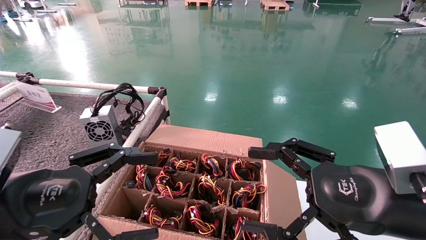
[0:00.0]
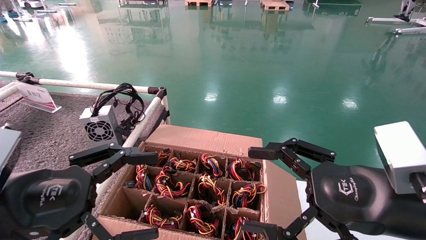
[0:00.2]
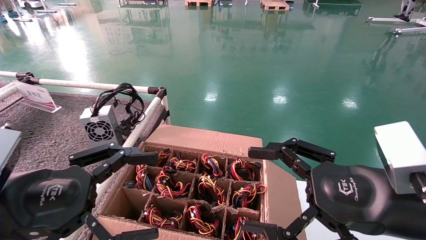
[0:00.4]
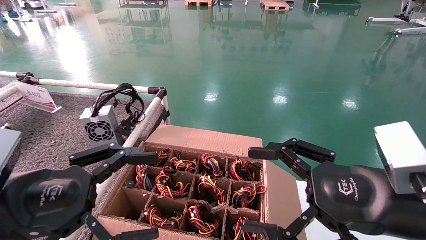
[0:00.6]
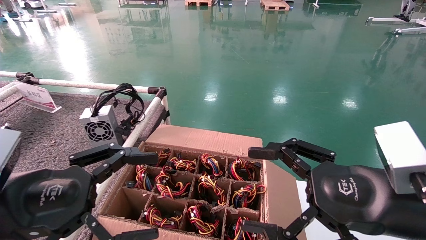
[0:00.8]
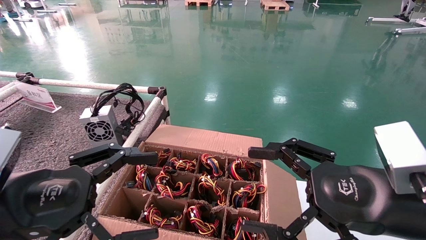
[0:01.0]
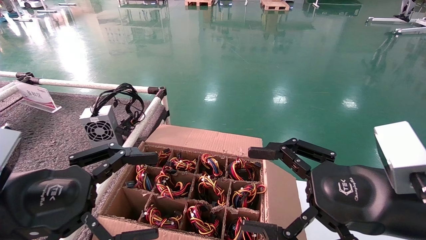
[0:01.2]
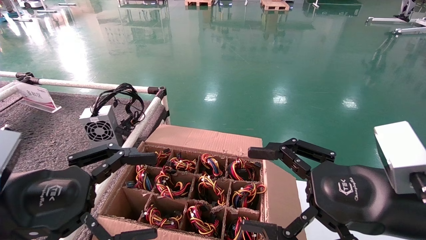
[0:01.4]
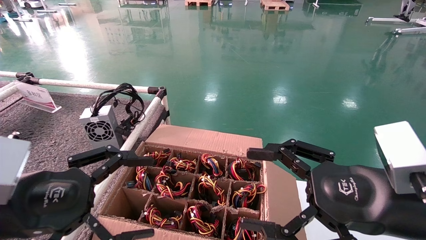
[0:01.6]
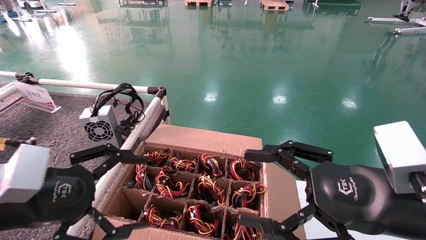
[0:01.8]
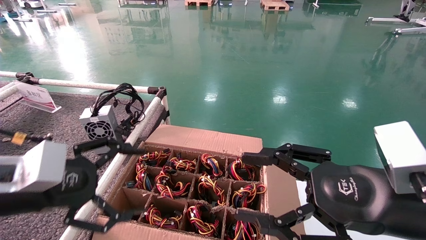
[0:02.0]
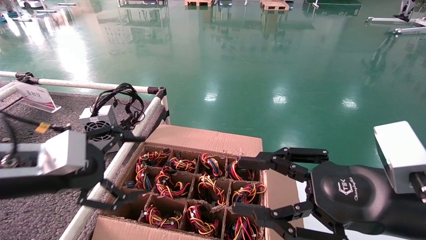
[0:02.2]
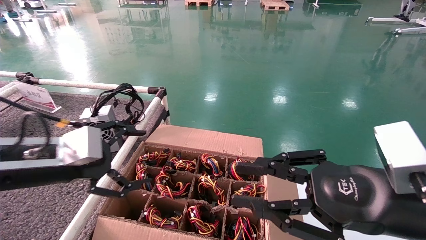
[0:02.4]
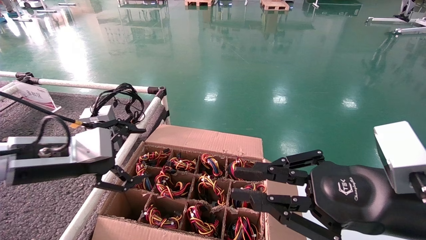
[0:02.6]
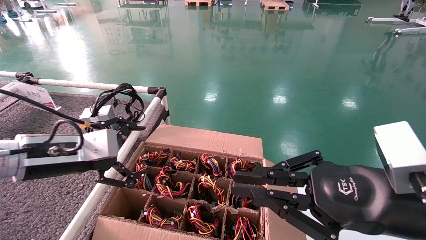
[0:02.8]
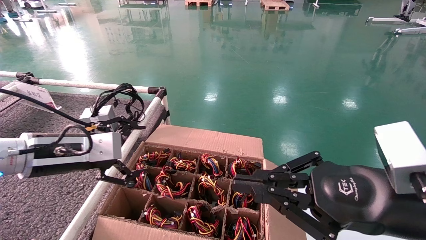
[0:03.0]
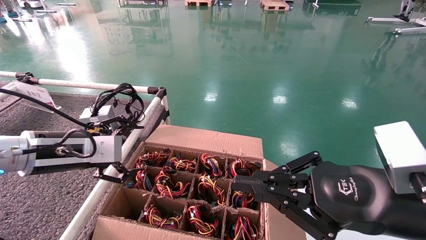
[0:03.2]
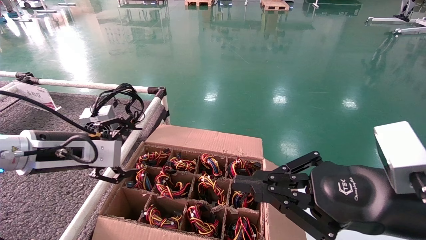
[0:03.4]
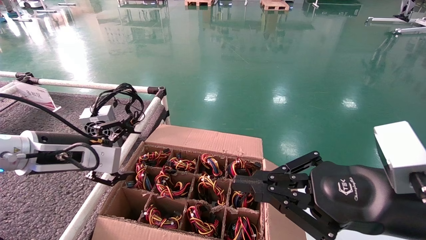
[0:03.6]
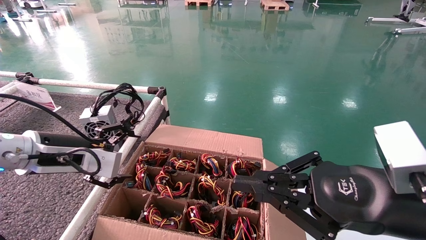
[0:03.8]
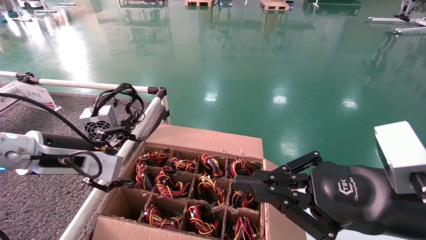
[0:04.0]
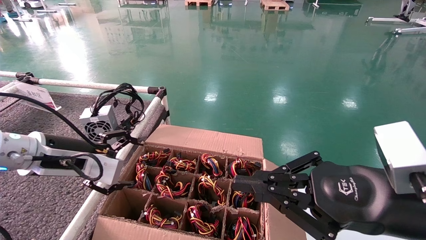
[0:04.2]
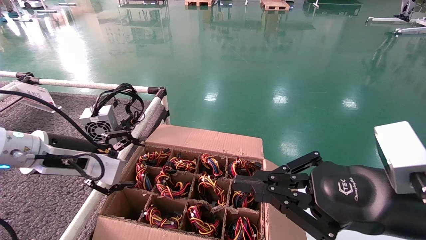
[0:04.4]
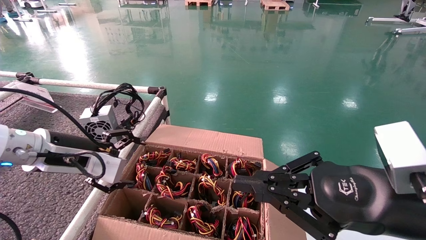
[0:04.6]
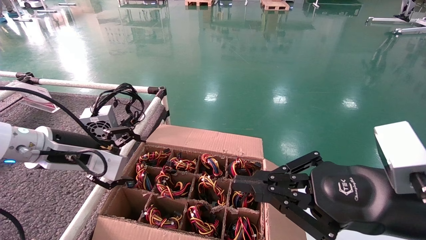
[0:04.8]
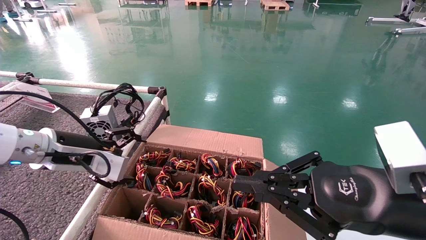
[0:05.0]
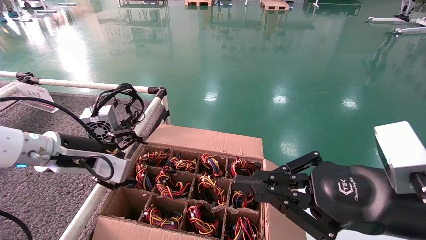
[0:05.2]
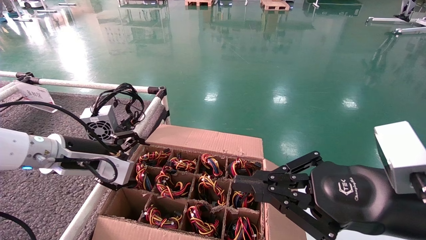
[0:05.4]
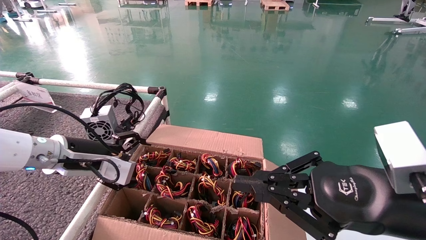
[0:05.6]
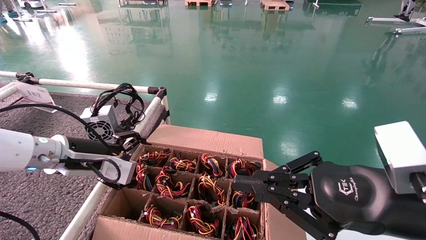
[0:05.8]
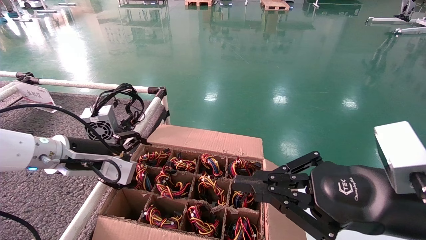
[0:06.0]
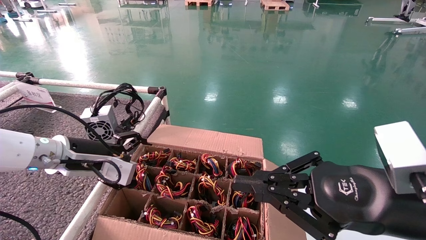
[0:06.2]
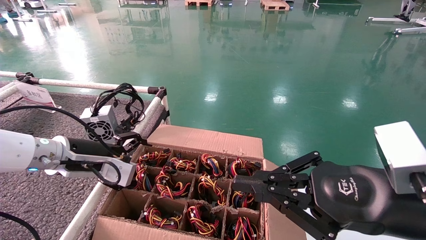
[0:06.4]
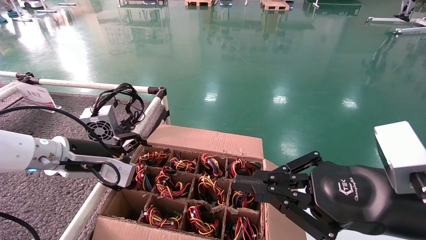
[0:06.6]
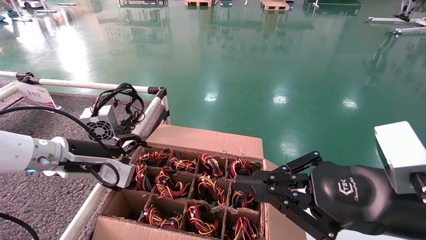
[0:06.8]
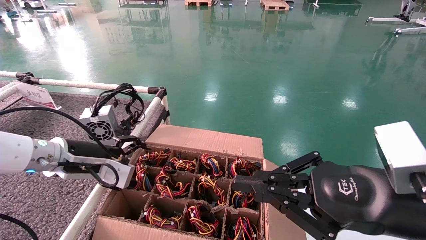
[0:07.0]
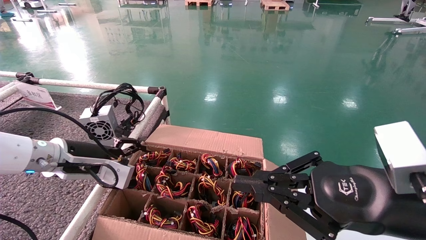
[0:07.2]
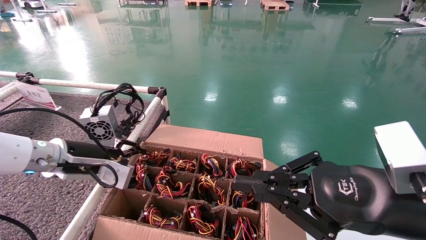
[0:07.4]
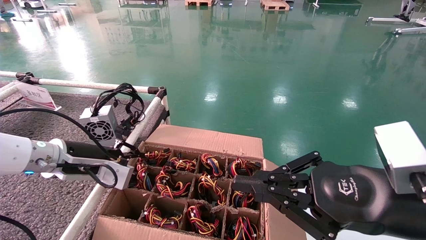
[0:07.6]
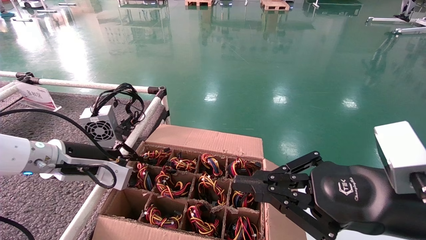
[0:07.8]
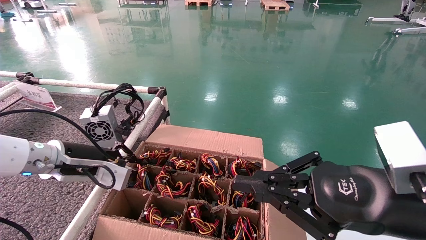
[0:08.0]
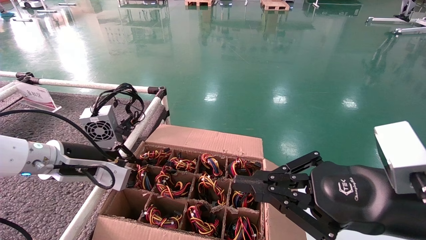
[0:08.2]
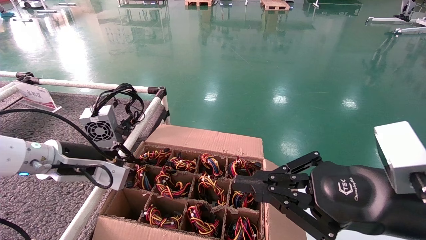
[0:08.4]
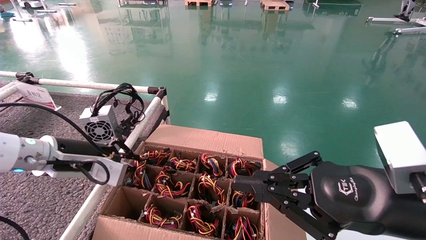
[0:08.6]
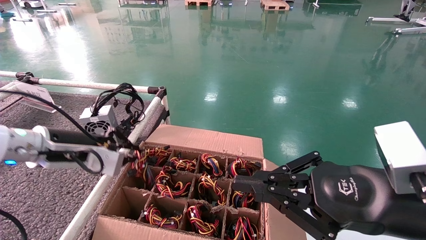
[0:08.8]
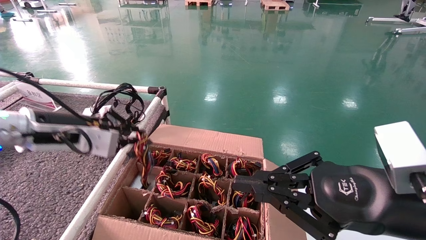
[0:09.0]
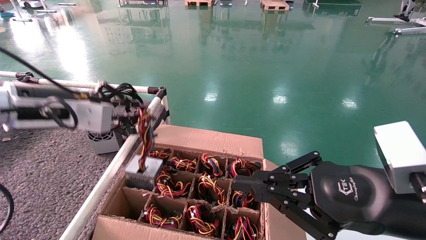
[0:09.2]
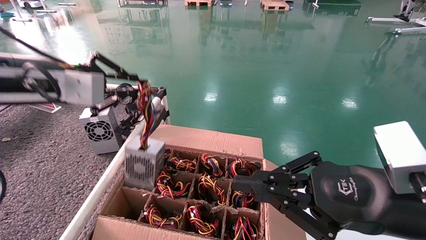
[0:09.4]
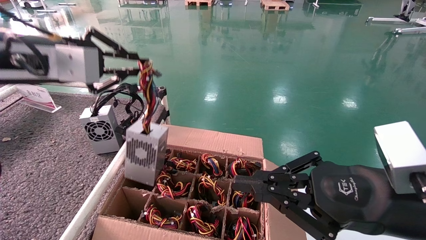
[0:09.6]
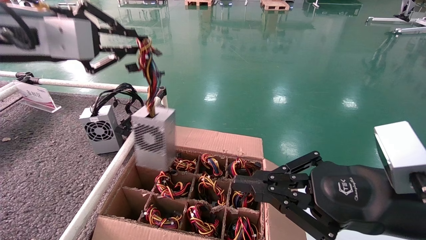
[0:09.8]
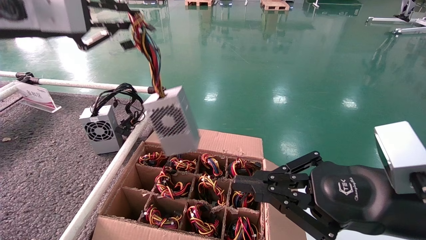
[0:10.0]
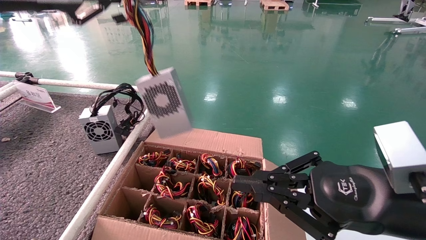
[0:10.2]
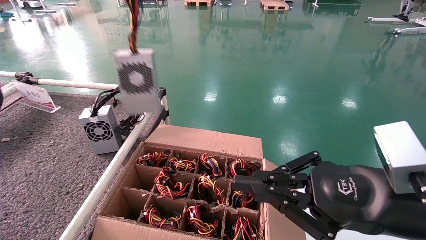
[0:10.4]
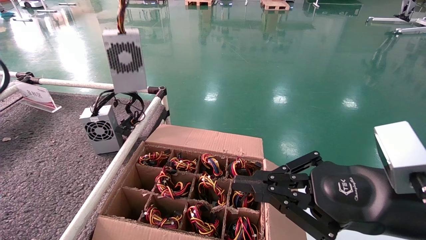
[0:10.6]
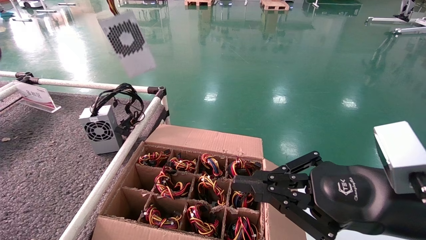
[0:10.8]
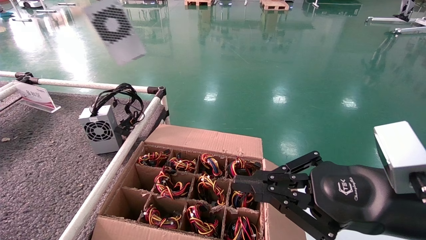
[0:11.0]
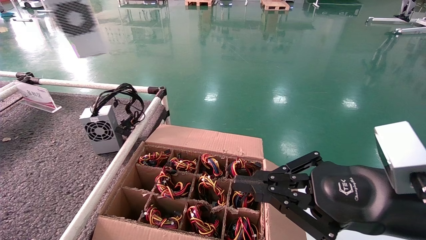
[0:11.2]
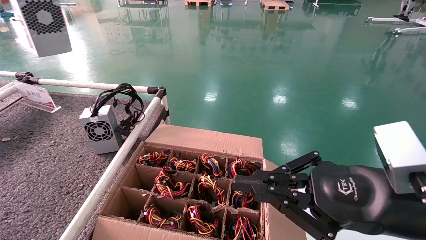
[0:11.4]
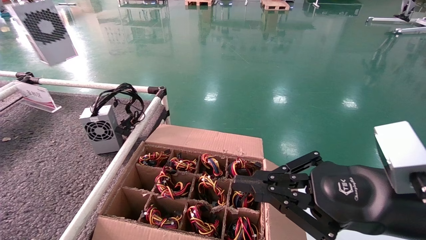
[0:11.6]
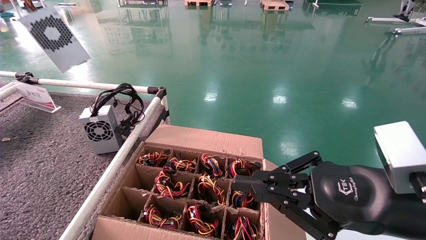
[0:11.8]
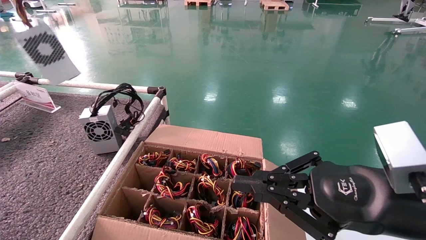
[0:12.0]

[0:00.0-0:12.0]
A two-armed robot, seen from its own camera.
Step, 0:00.0 to 0:08.2: Grasp the battery.
0:00.0 to 0:01.6: The grippers stay close to where they were, moving slightly.
0:01.6 to 0:03.0: The left gripper moves forward, about 10 cm. The right gripper closes.
0:04.4 to 0:06.0: The grippers stay close to where they were, moving slightly.
0:06.0 to 0:07.6: The left gripper closes up.
0:07.6 to 0:09.0: The left gripper shifts roughly 10 cm upward, and closes up.
0:09.0 to 0:10.4: The left gripper shifts some 25 cm upward.
0:10.4 to 0:12.0: The left gripper moves to the left, approximately 15 cm.

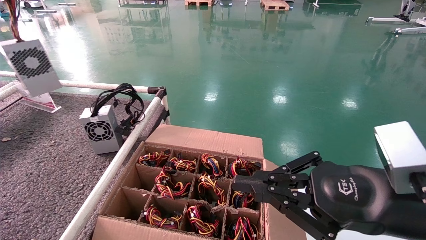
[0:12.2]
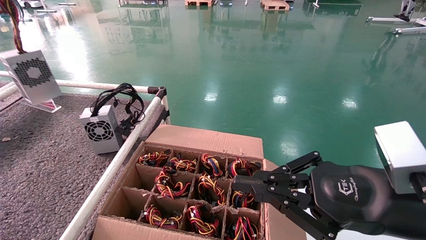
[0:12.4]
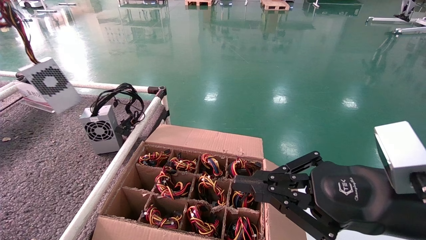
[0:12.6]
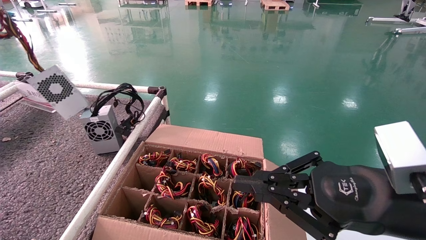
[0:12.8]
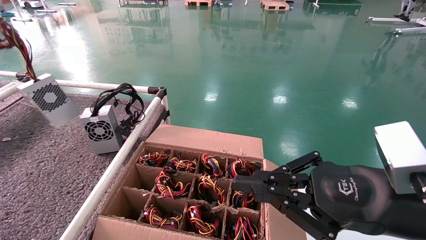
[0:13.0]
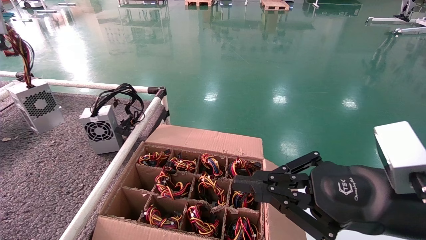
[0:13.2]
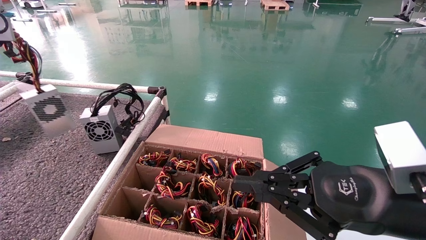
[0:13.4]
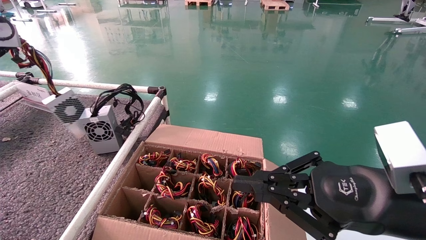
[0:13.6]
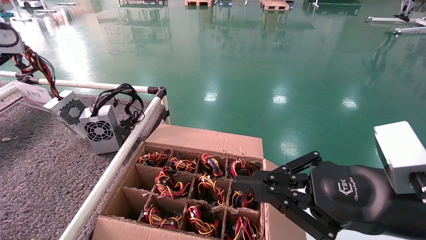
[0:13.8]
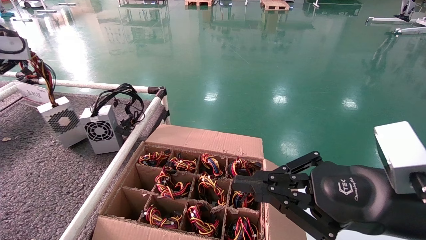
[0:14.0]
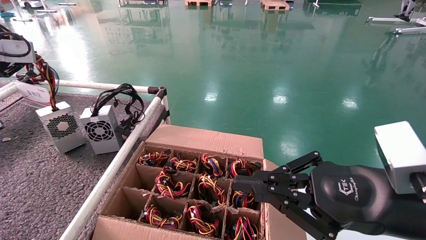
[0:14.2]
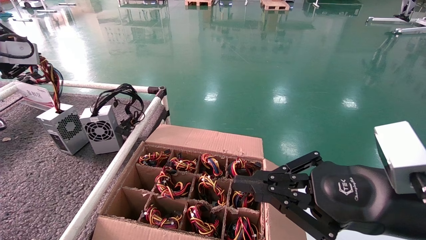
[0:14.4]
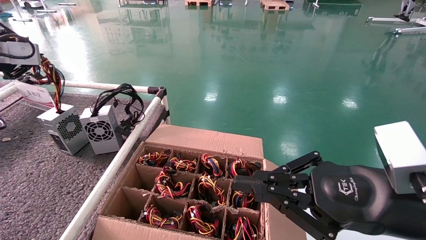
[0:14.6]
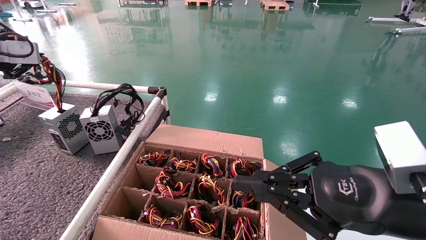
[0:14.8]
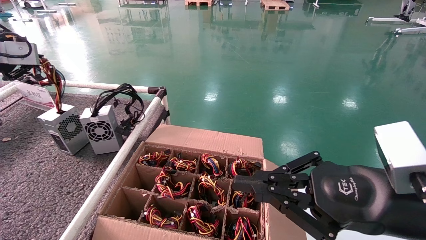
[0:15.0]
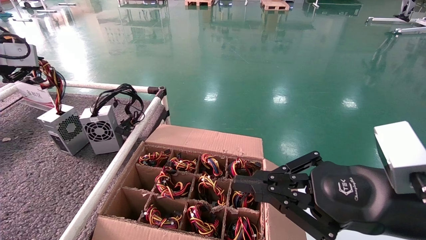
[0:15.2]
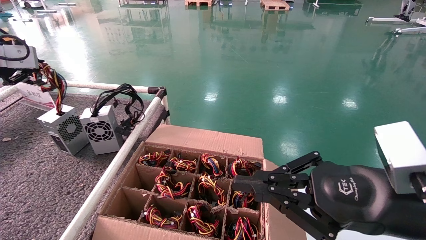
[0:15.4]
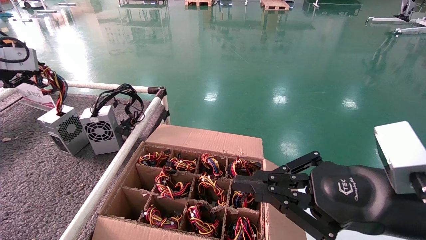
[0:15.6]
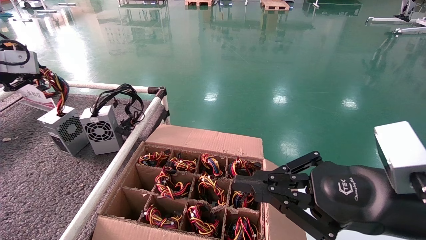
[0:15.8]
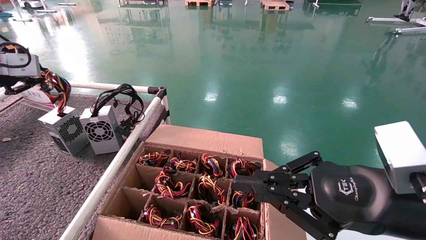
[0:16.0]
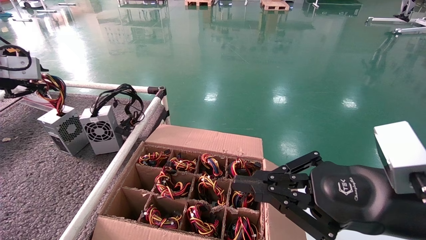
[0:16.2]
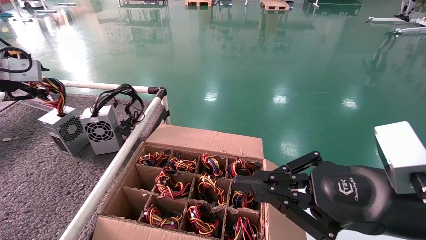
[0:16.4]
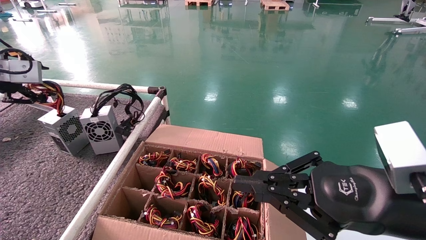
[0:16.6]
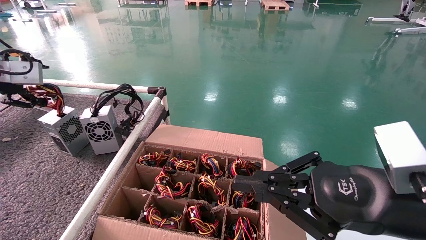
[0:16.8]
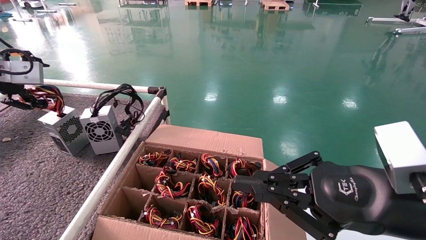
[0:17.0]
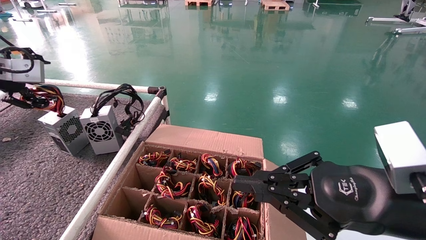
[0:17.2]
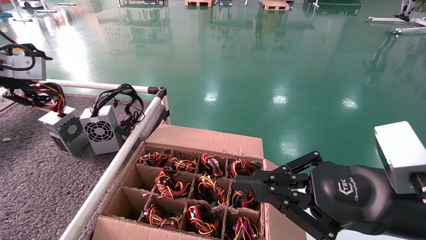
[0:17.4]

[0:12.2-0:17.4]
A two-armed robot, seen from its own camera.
0:12.2 to 0:14.0: The left gripper moves downward and forward, some 10 cm.
0:14.0 to 0:15.6: The grippers move only a little.
0:15.6 to 0:17.4: The left gripper opens.
